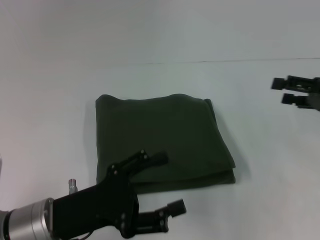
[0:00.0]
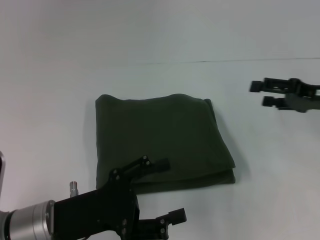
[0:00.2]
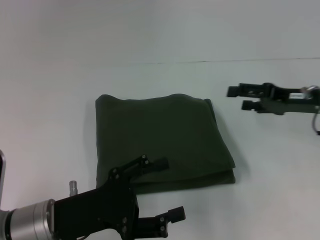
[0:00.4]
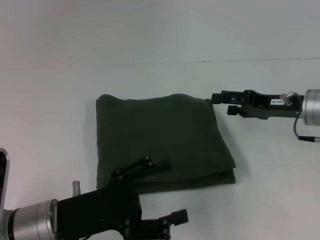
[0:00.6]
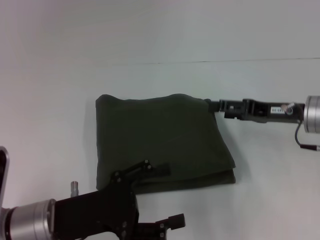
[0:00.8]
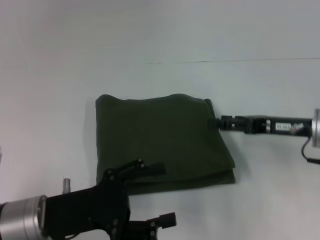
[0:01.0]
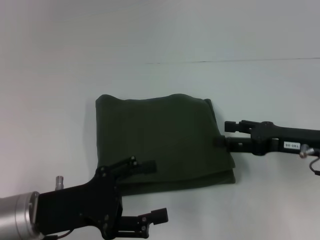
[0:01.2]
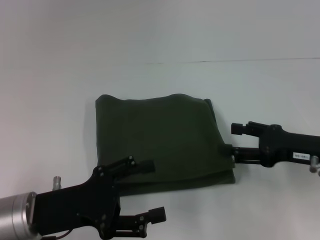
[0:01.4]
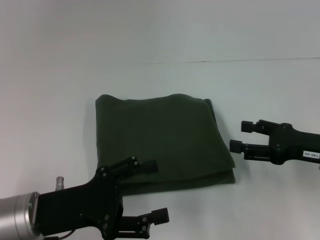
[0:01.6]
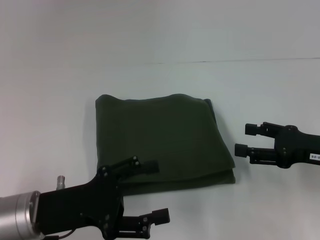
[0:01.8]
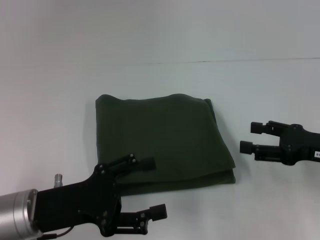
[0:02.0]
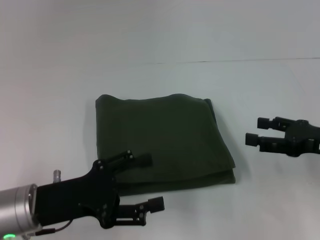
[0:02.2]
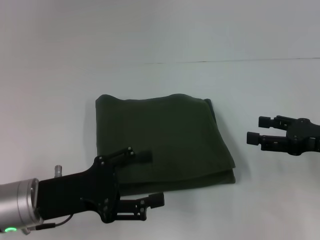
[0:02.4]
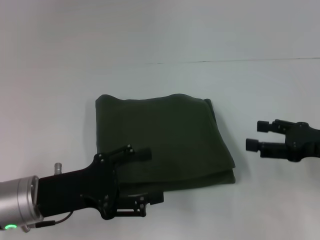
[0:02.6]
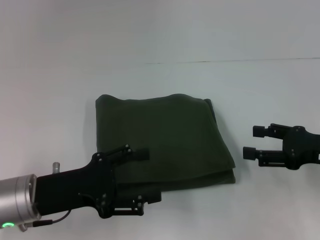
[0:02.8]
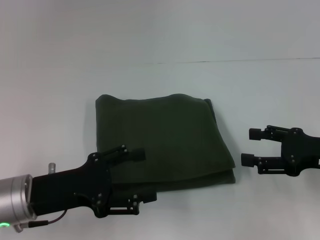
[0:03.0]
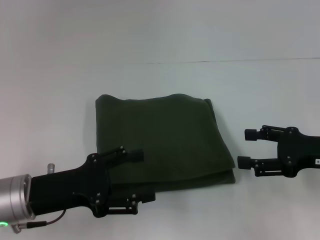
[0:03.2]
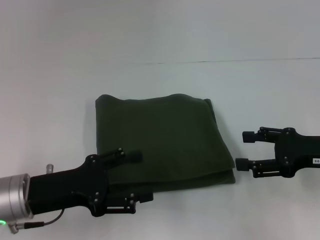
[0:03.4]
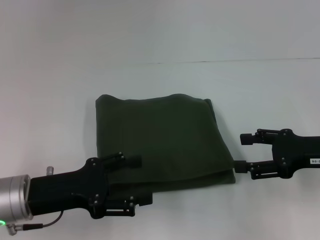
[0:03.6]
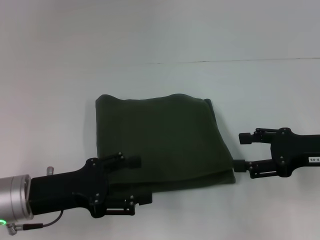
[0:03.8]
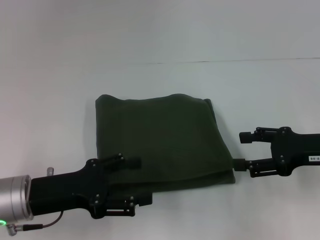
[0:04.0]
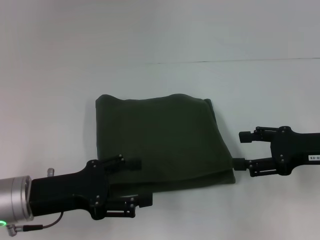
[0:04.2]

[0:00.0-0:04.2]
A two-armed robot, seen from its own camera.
0:00.0 to 0:01.4: The right gripper shifts approximately 5 cm to the left.
0:01.4 to 0:04.2: The grippers make only small movements.

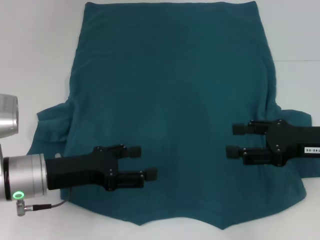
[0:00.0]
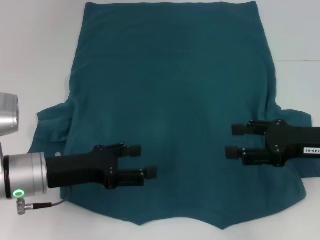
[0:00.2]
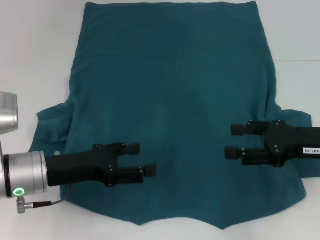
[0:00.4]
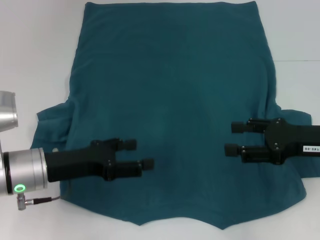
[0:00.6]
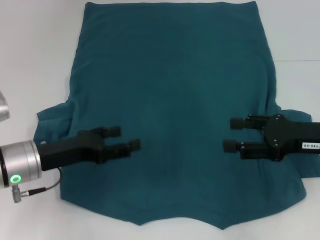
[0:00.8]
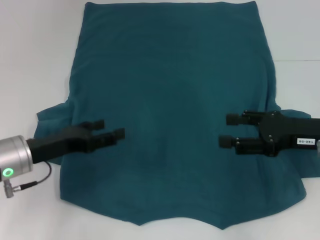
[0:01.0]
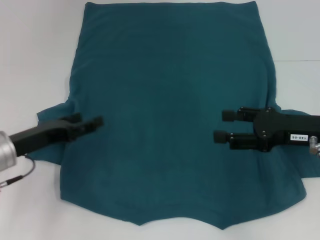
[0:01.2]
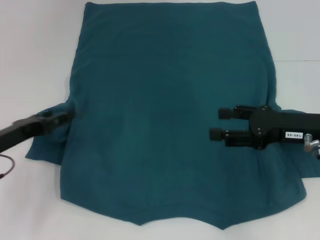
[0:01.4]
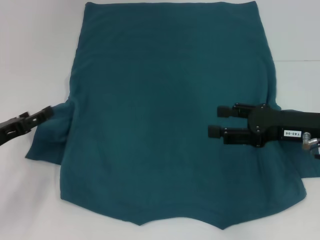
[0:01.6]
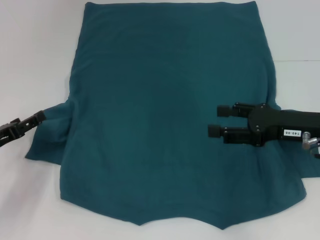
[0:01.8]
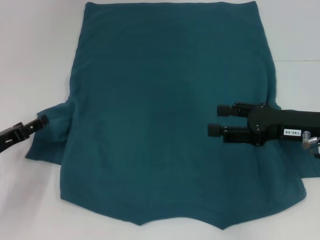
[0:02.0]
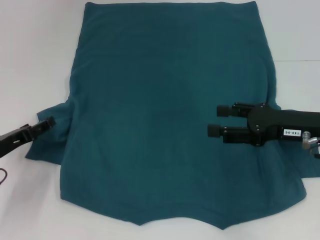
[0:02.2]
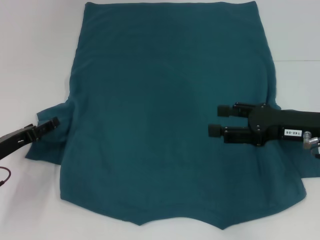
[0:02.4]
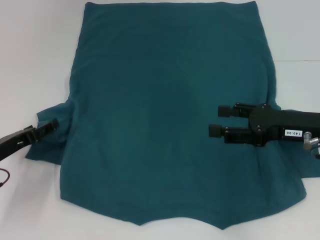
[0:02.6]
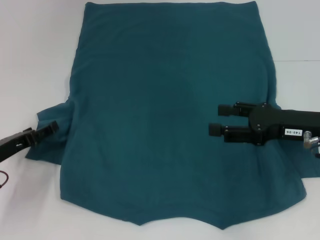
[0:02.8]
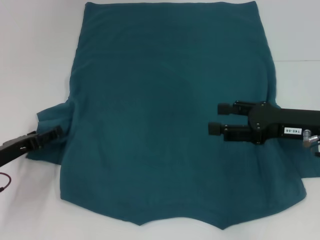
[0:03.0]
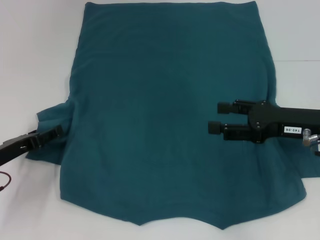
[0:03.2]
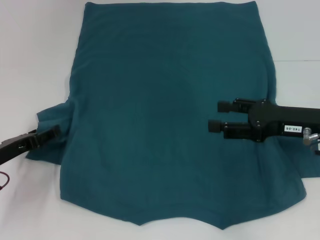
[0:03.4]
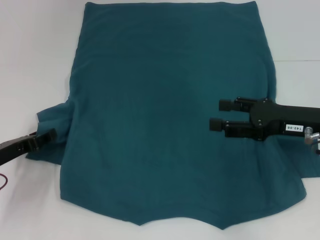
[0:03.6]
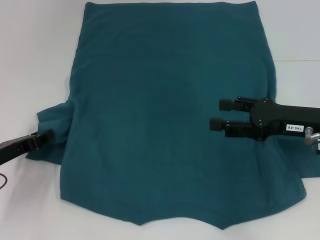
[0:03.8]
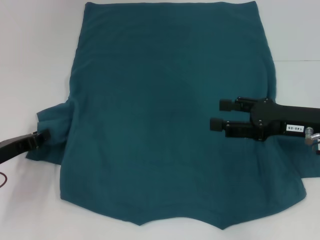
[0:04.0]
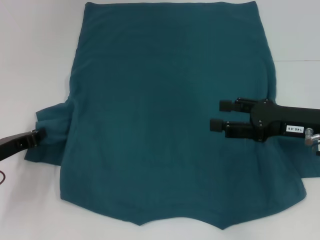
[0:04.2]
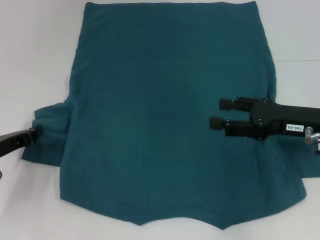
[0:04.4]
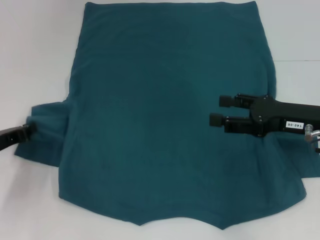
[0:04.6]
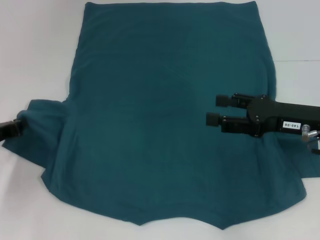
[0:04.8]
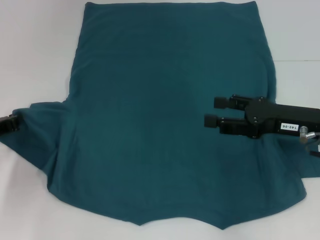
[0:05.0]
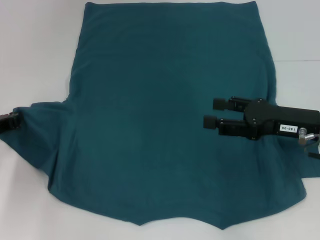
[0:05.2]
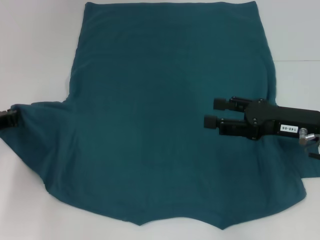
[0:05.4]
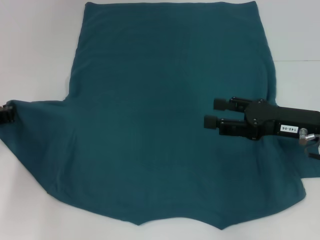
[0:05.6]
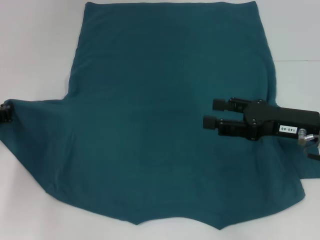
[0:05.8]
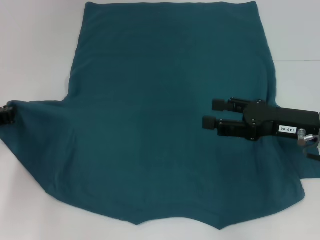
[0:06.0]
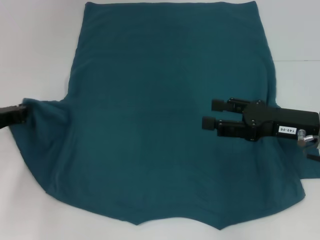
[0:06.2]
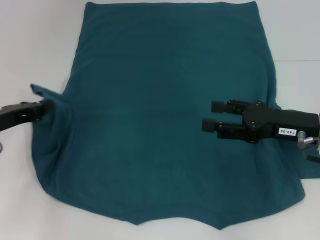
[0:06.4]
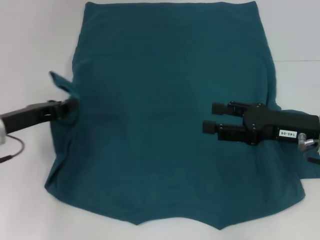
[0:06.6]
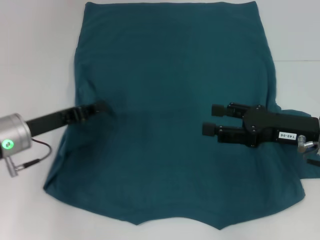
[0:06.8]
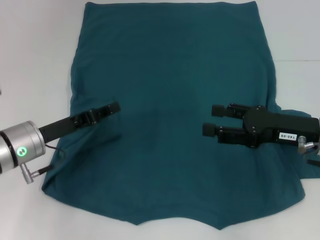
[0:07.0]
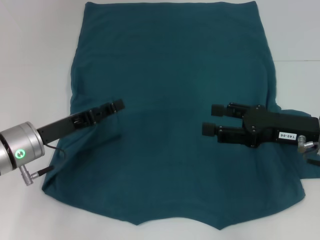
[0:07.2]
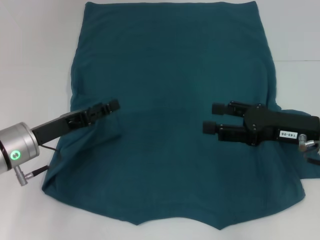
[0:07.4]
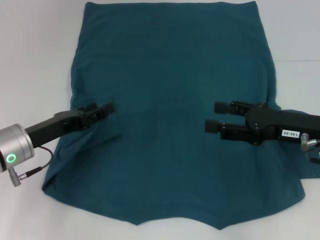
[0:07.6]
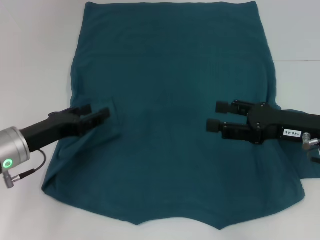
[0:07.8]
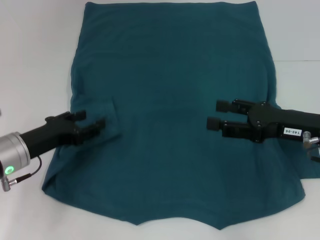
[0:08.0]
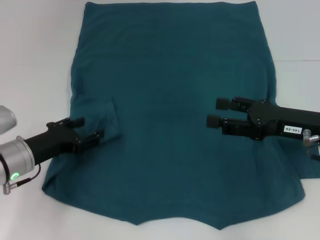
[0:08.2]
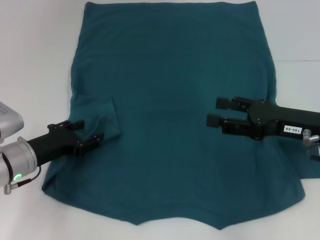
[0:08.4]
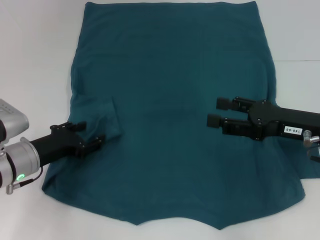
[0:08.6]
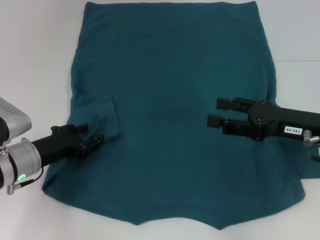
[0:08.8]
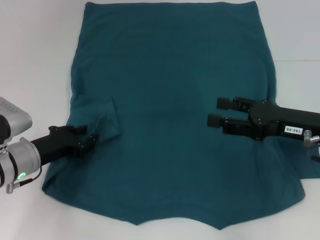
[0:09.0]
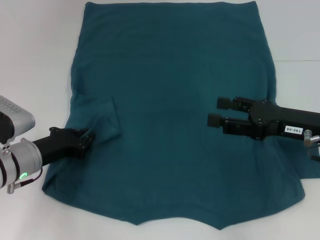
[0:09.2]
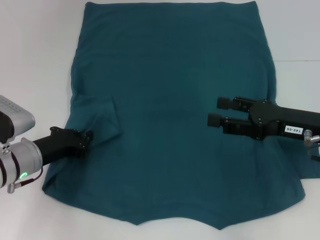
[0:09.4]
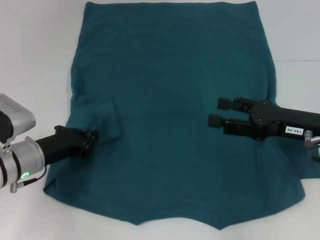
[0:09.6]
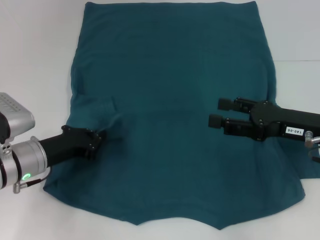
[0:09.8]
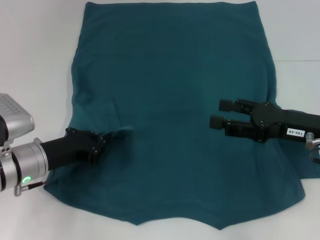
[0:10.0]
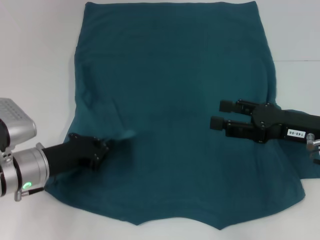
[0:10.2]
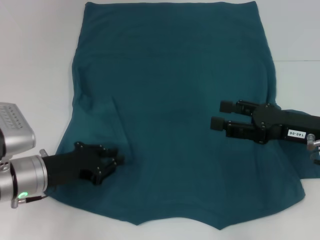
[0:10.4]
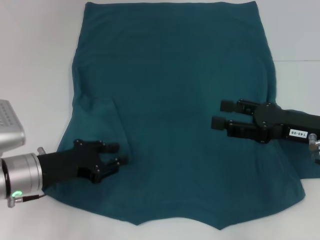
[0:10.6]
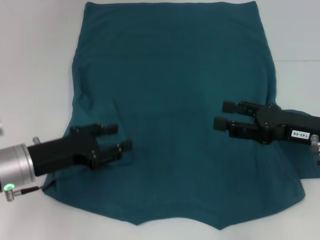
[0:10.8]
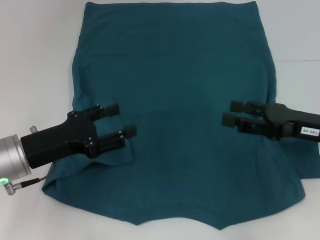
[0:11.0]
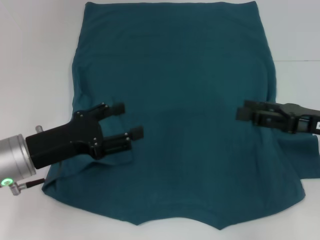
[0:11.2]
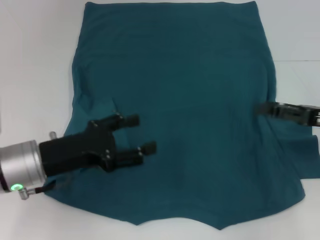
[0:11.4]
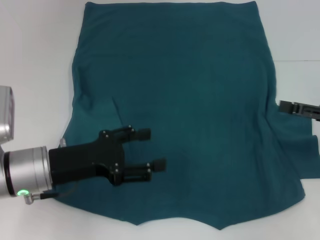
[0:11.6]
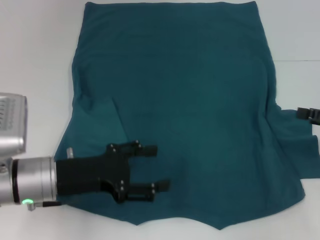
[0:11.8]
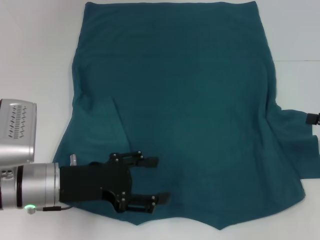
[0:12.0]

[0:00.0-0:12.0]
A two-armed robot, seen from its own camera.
Step, 0:00.0 to 0:10.6: Fold the bottom left sleeve with your left hand.
0:00.0 to 0:01.6: The left gripper heads to the left, covering approximately 10 cm.
0:01.6 to 0:03.0: There are only small adjustments of the grippers.
0:03.0 to 0:04.4: The left gripper closes.
0:04.4 to 0:06.0: There are only small adjustments of the grippers.
0:06.0 to 0:07.6: The left gripper moves to the right, approximately 10 cm, and opens its fingers.
0:09.0 to 0:10.4: The left gripper closes up.
0:10.4 to 0:12.0: The left gripper opens; the right gripper moves to the right, roughly 15 cm.

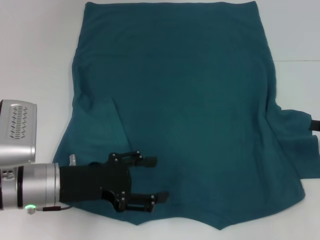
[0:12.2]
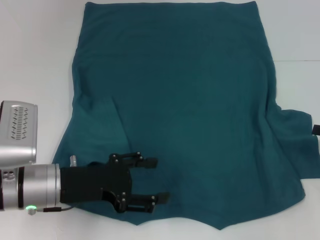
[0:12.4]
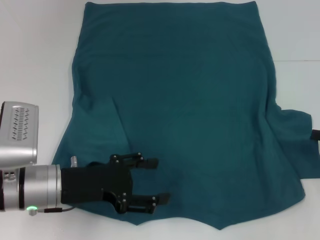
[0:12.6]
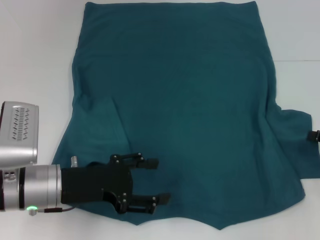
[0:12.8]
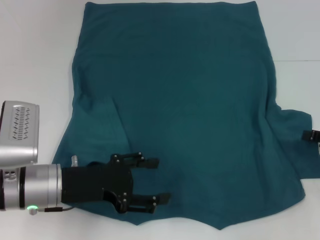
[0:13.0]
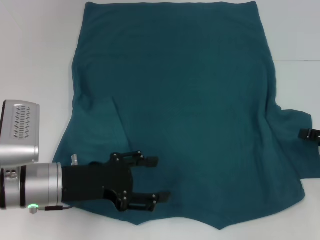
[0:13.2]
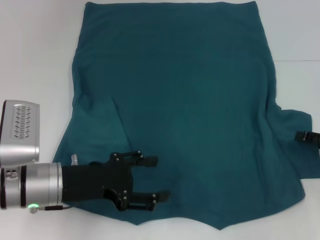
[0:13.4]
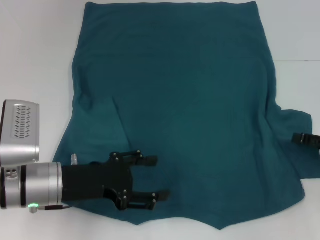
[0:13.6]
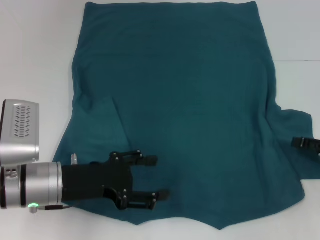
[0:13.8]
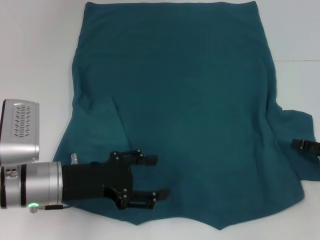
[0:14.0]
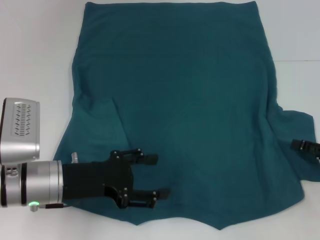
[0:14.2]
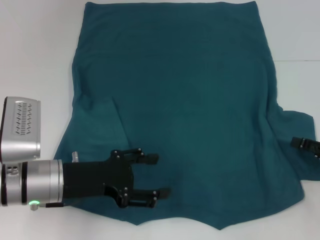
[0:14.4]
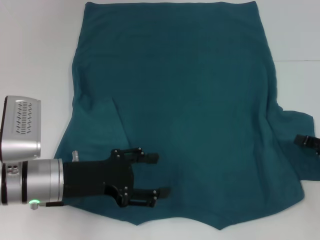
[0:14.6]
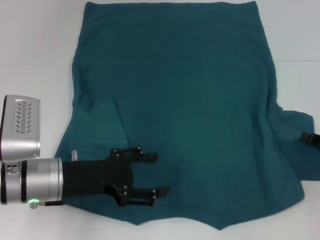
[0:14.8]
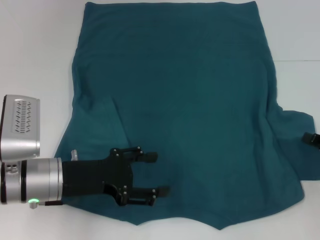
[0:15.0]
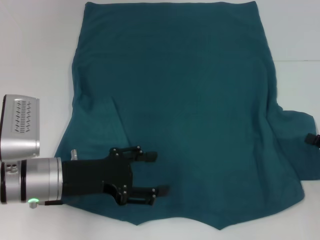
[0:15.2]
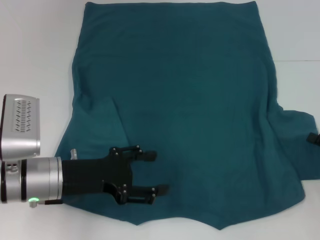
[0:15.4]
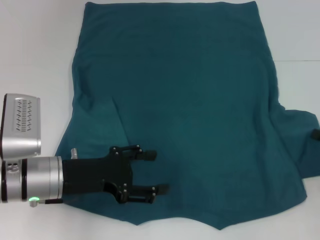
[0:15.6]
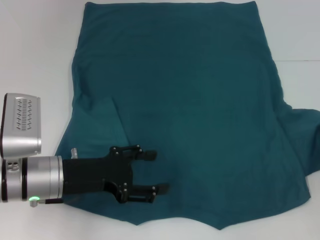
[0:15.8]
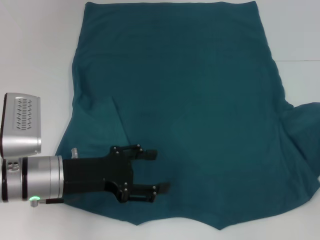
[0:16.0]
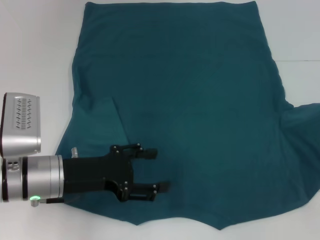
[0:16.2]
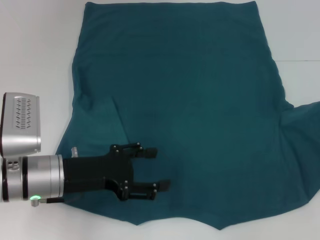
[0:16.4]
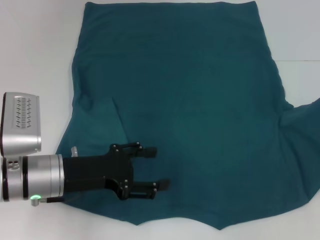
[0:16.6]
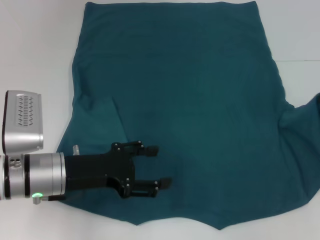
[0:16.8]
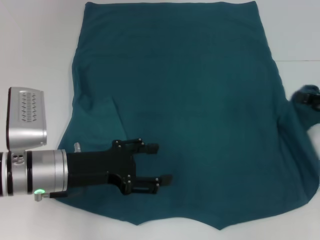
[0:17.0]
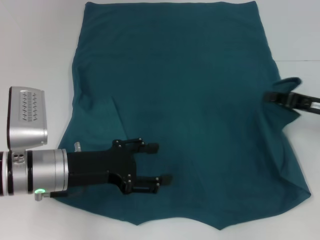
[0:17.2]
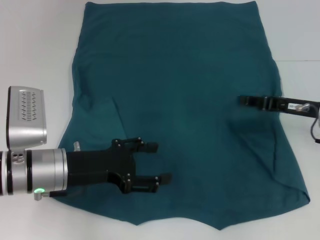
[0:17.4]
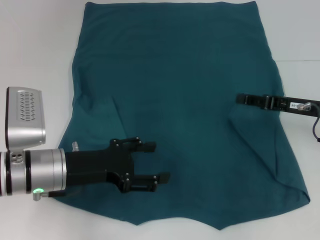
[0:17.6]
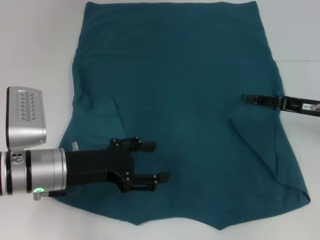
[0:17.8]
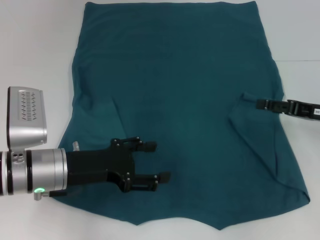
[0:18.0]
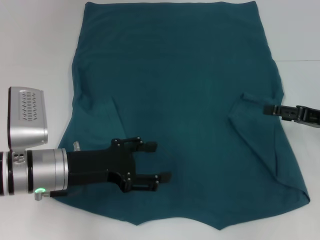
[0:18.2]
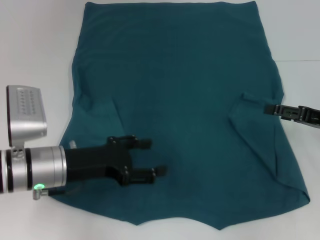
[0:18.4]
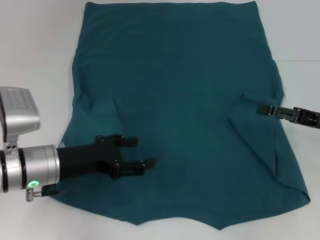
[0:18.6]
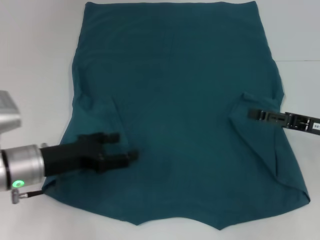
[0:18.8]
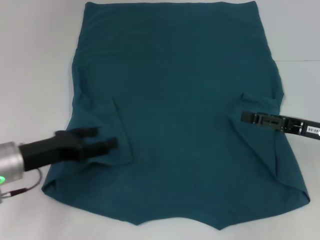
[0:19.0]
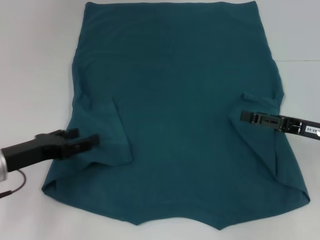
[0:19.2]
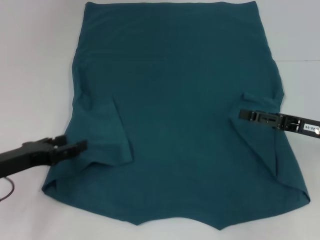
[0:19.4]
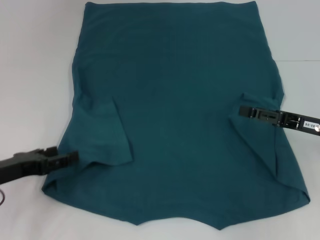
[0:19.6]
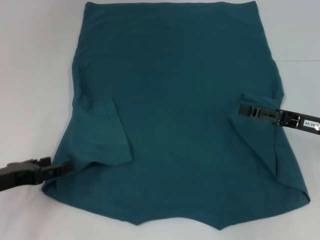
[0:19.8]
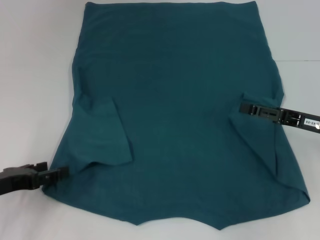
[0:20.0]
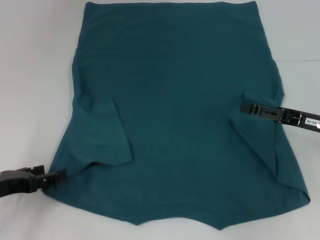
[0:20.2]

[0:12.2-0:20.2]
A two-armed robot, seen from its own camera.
Step, 0:12.2 to 0:17.6: Fold the bottom right sleeve to the right.
0:12.2 to 0:13.8: There are only small adjustments of the grippers.
0:13.8 to 0:15.4: The right gripper closes up.
0:15.4 to 0:17.0: The right gripper heads forward and upward, covering approximately 5 cm.
0:17.0 to 0:18.6: The right gripper opens.
0:18.6 to 0:20.2: The left gripper shifts approximately 10 cm to the left.